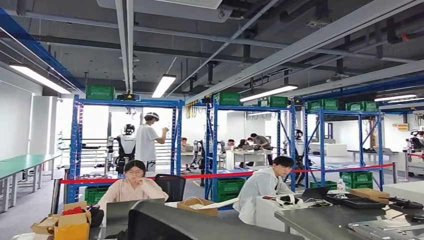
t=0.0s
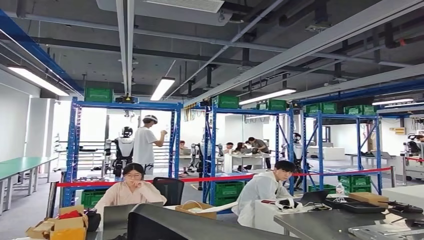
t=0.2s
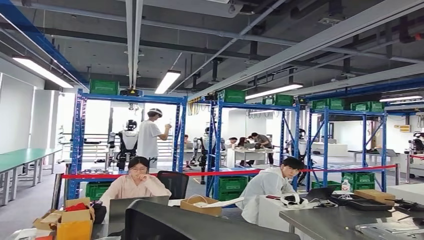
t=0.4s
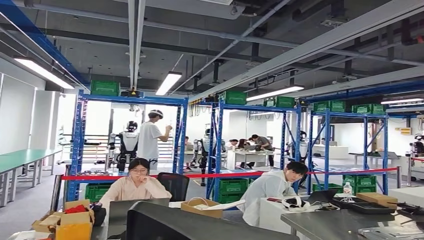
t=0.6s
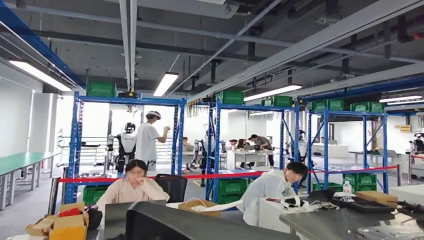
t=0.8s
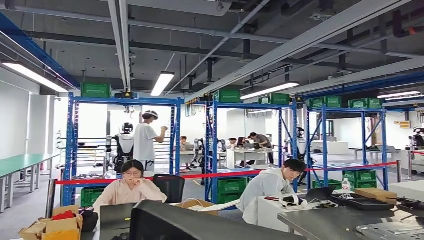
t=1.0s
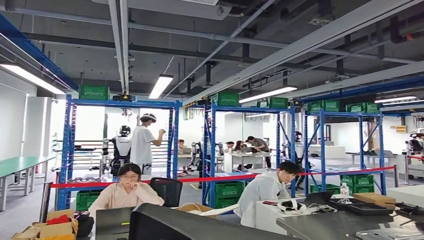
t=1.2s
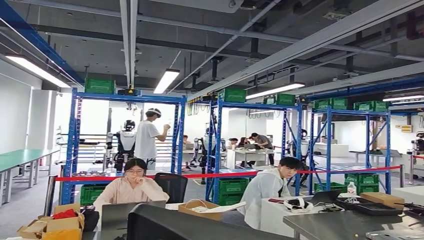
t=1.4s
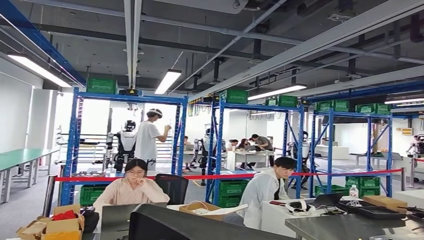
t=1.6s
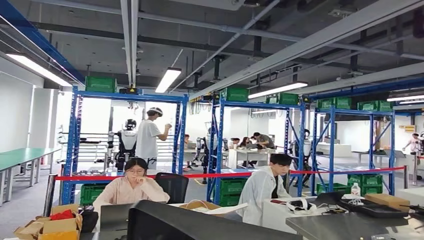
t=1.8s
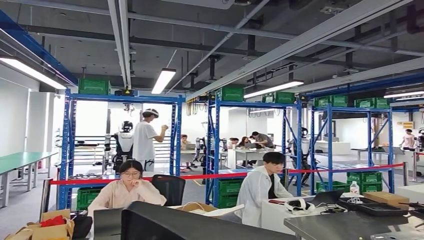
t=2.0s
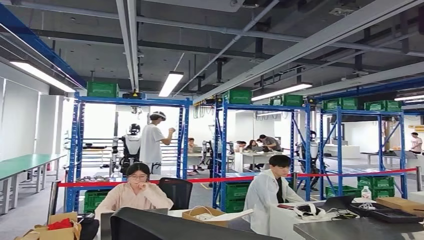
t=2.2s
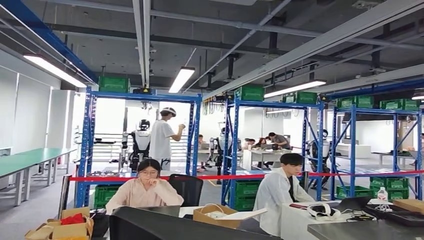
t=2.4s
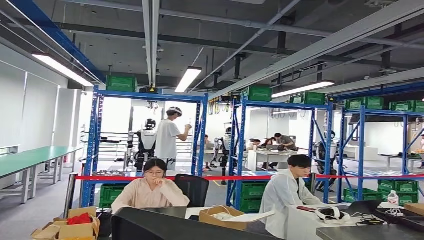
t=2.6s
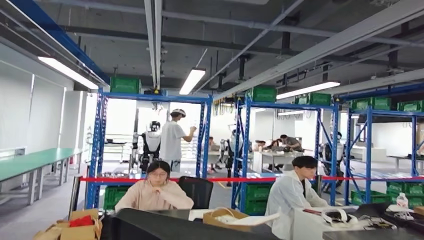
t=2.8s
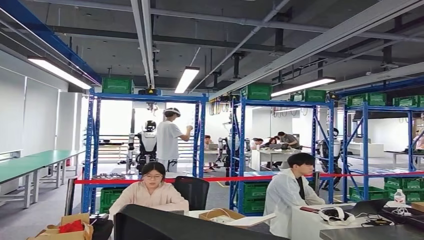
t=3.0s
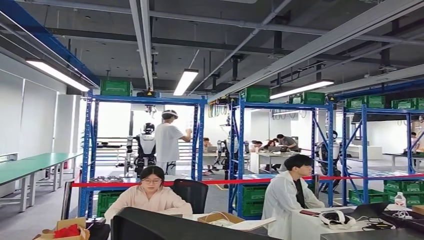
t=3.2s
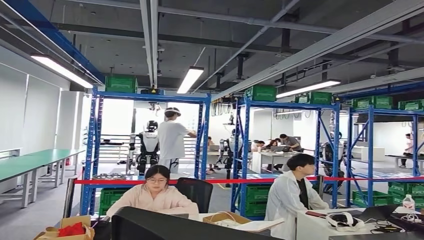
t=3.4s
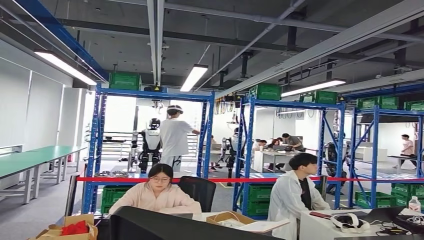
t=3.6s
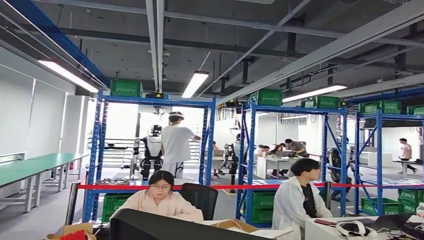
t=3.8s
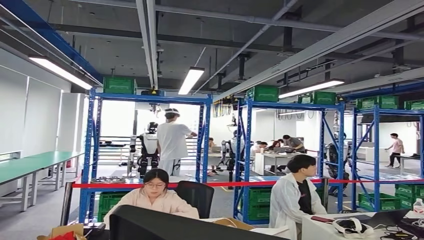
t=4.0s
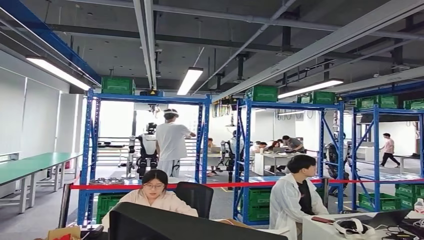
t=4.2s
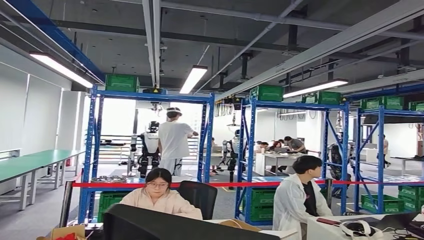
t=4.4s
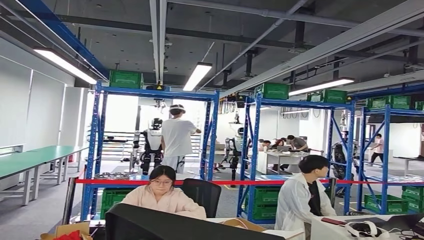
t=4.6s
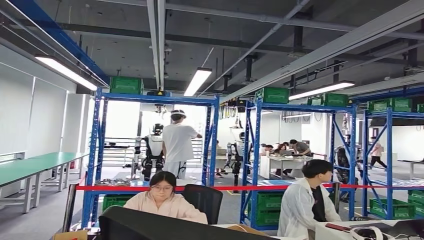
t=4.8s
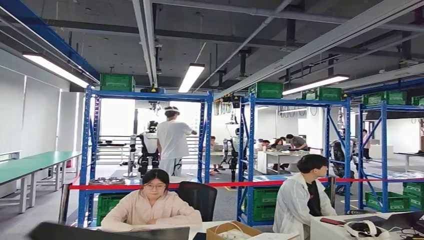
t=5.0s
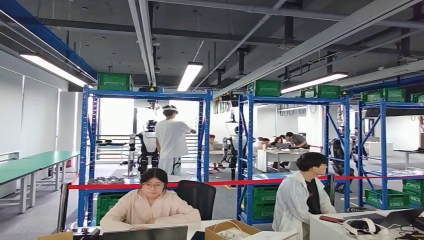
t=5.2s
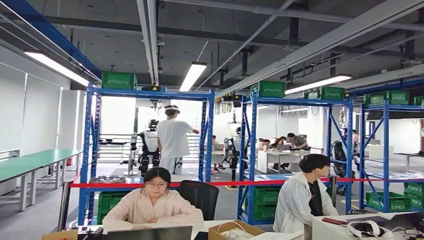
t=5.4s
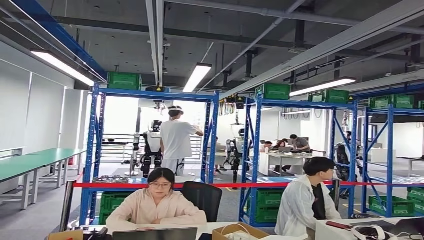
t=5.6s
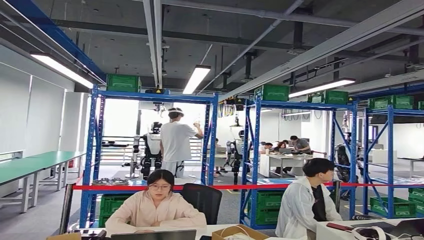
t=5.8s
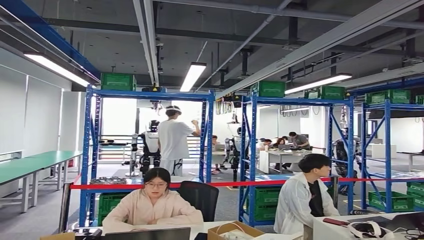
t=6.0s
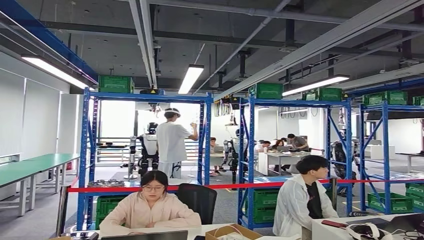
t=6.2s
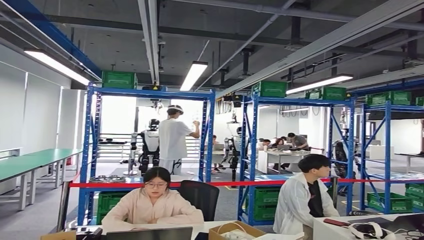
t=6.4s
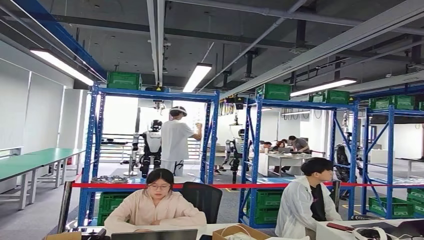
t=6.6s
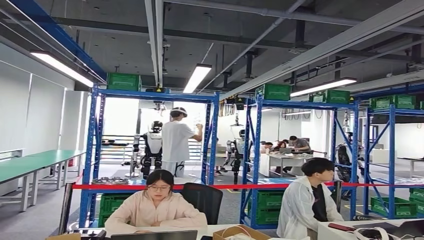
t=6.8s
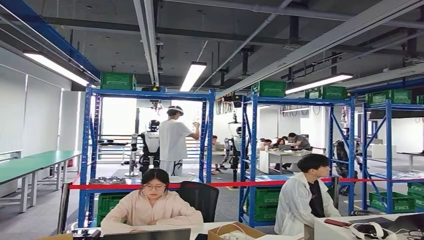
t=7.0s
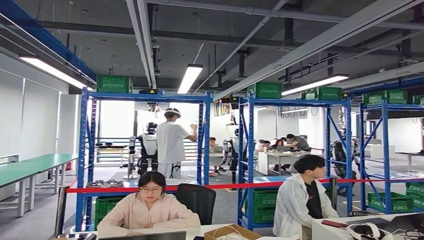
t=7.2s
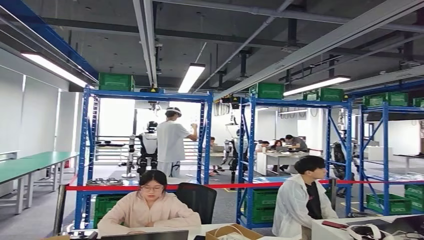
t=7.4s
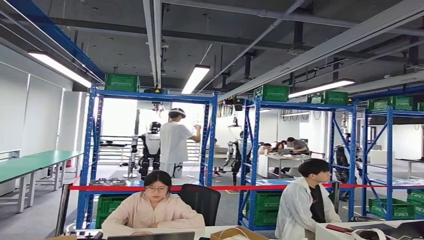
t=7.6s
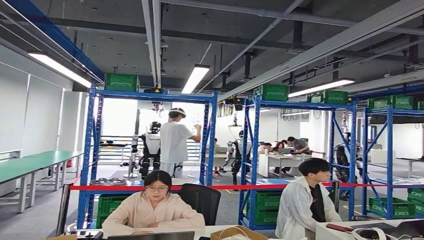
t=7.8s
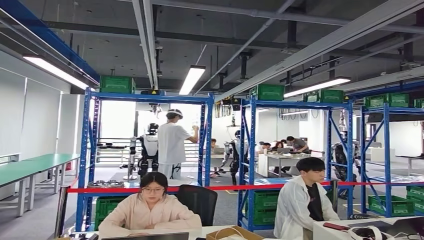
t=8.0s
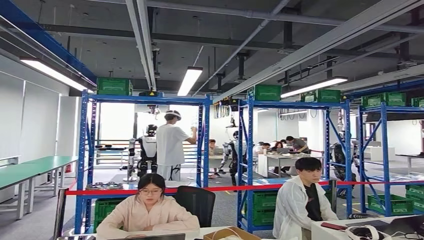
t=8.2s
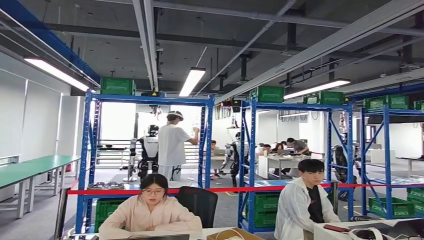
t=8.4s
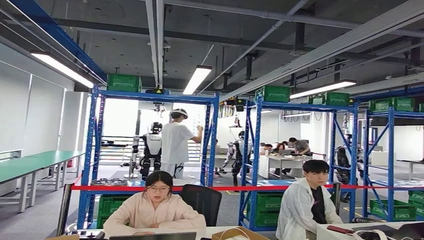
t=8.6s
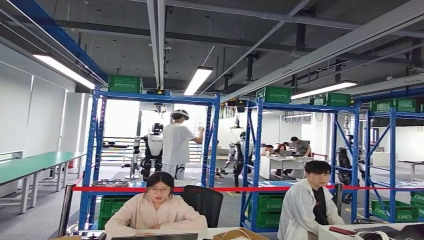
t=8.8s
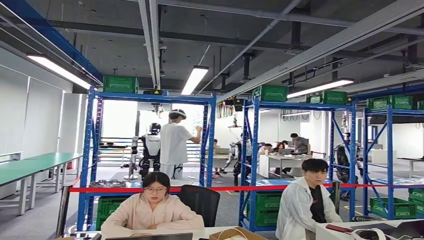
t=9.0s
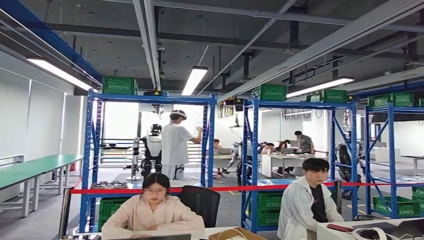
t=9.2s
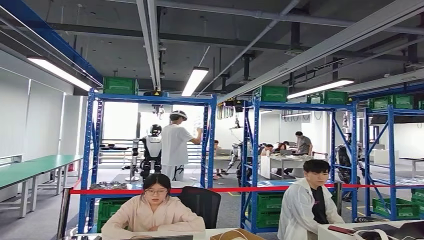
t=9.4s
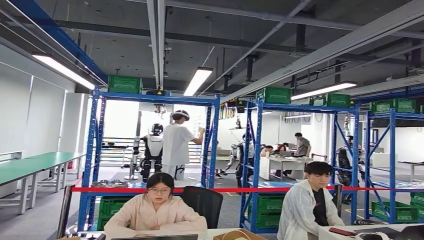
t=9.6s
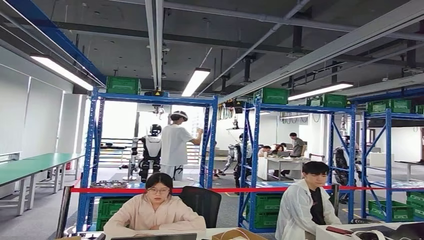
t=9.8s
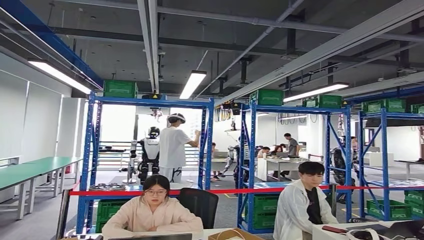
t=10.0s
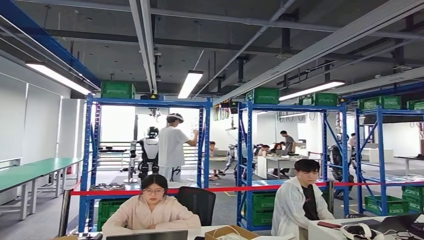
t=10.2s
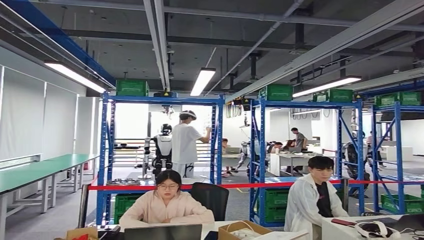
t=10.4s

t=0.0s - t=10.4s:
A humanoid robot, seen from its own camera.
Step, t=0.0s - t=6.2s: Move the small parts to the workbench.
Step, t=6.4s - t=9.2s: Insert the small parts into the corresponding holes on the workbench.

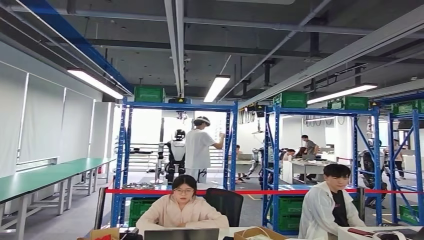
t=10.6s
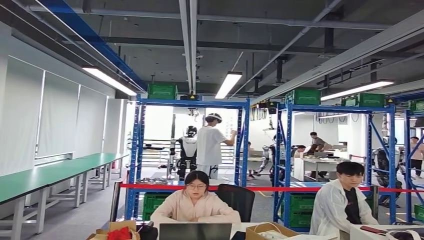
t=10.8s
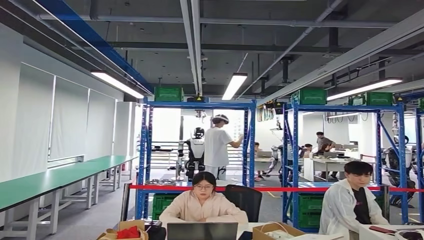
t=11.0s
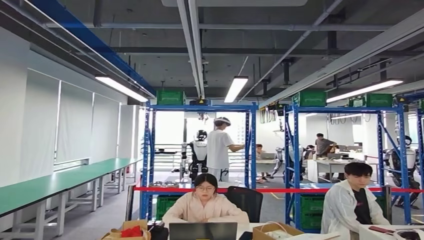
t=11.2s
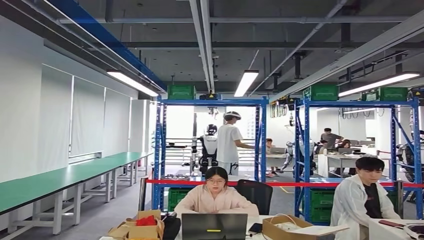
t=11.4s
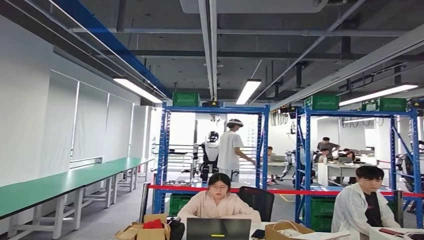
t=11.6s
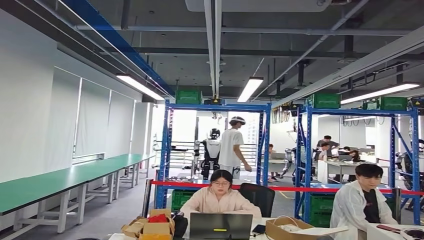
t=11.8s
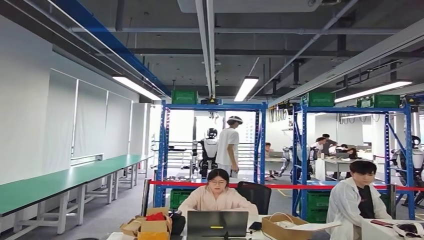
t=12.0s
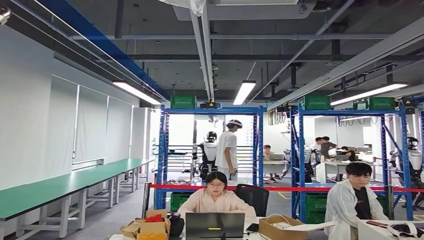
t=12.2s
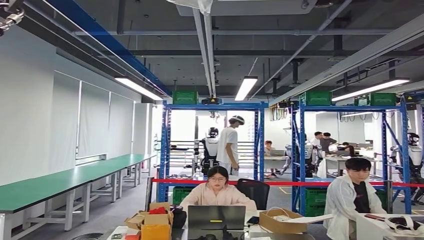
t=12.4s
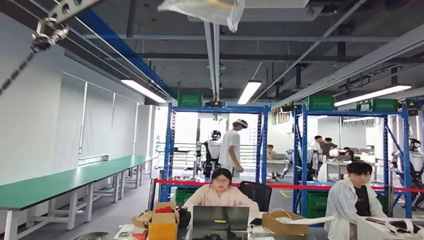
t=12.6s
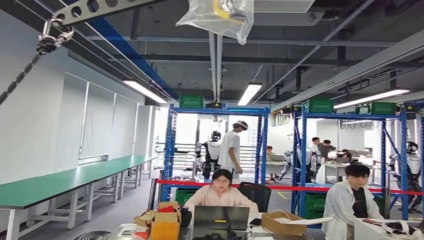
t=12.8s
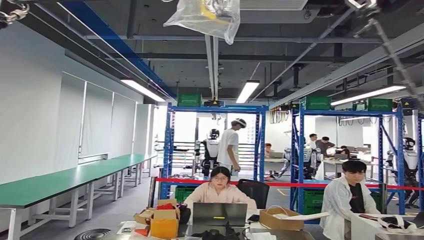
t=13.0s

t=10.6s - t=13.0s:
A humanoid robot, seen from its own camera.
Step, t=10.6s - t=13.0s: Move to the initial position at the workbench.

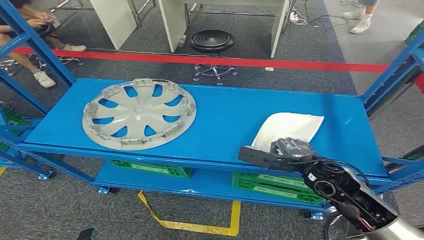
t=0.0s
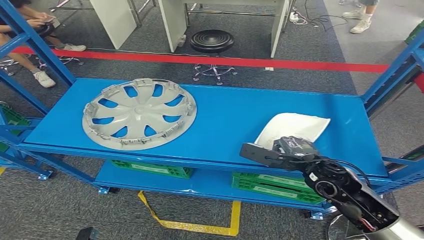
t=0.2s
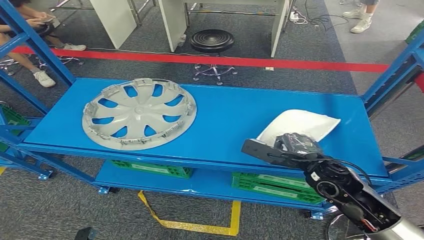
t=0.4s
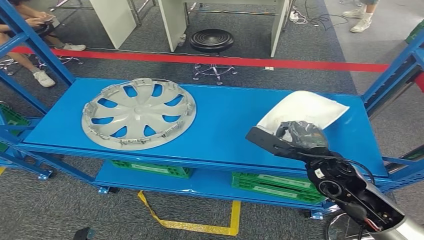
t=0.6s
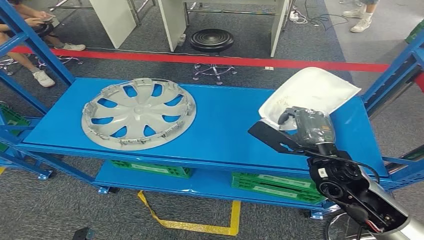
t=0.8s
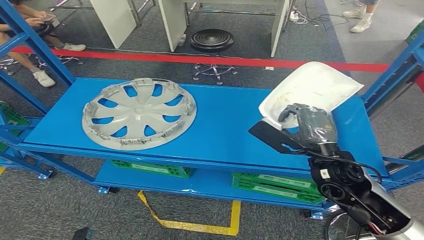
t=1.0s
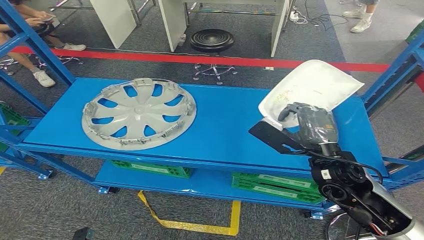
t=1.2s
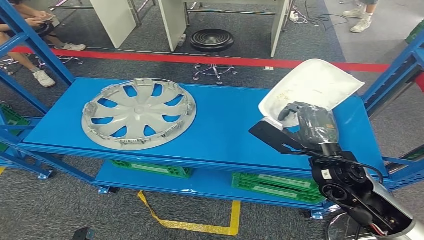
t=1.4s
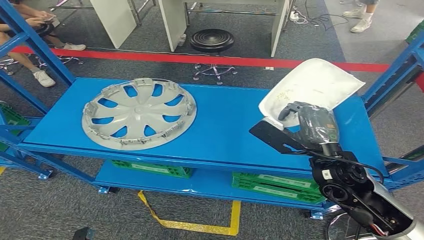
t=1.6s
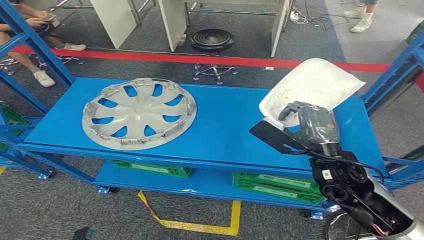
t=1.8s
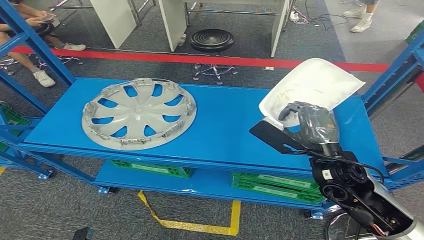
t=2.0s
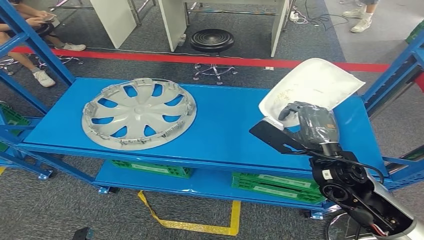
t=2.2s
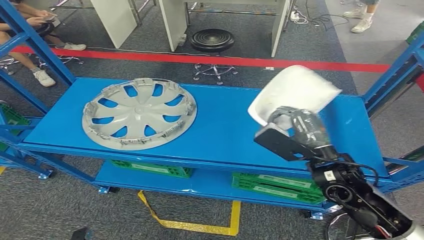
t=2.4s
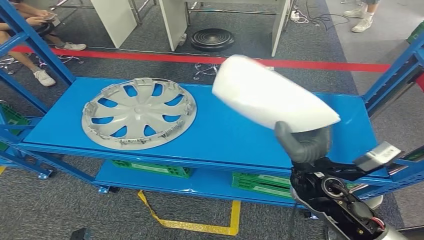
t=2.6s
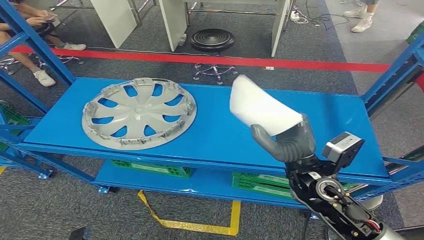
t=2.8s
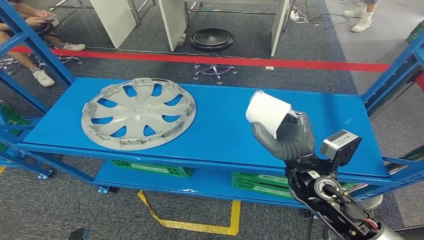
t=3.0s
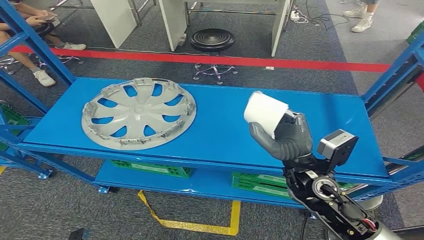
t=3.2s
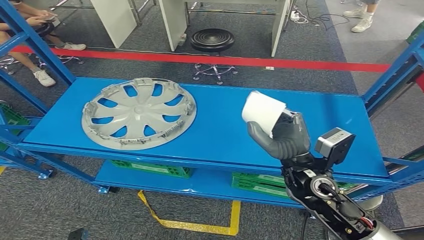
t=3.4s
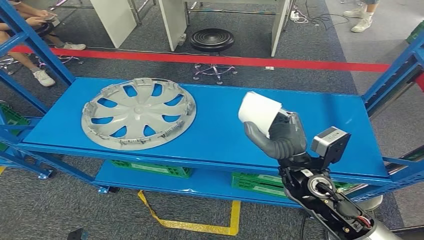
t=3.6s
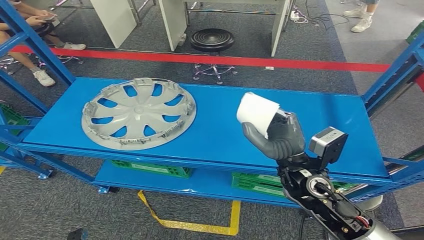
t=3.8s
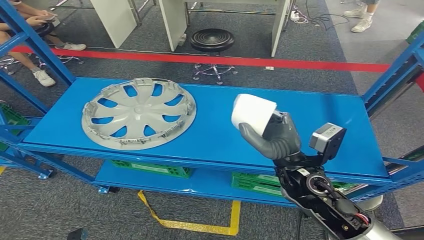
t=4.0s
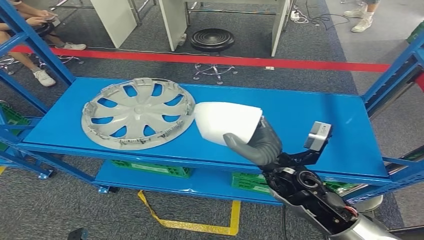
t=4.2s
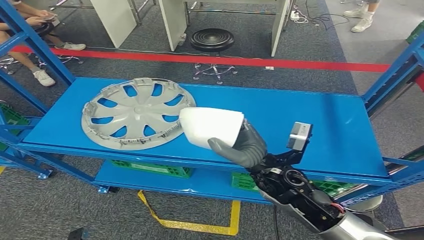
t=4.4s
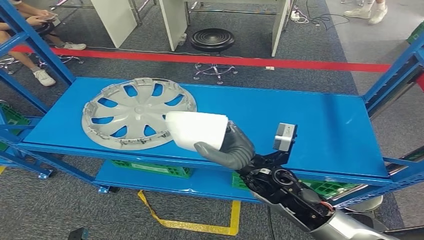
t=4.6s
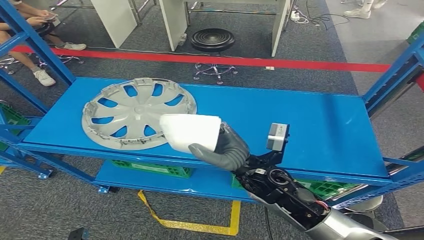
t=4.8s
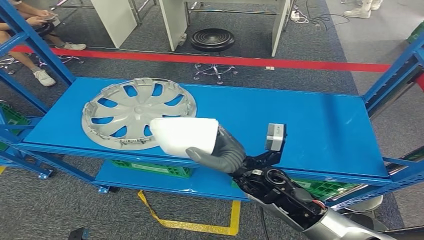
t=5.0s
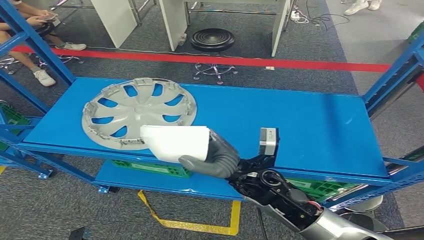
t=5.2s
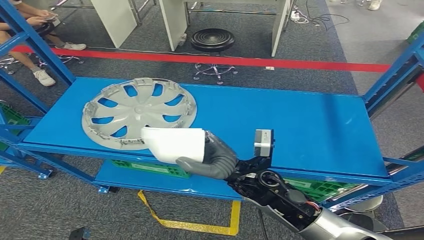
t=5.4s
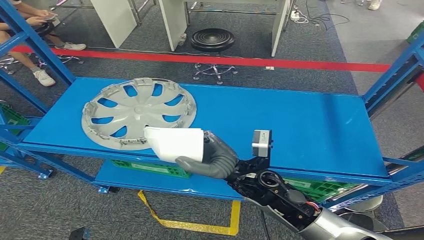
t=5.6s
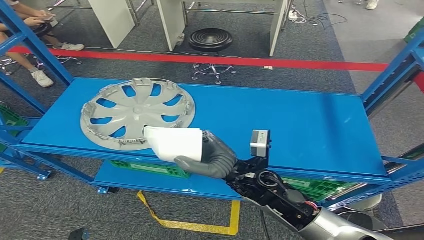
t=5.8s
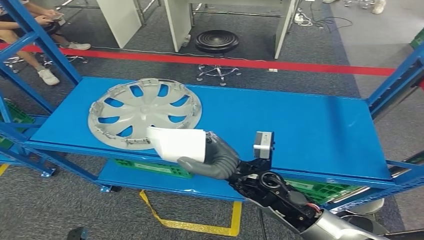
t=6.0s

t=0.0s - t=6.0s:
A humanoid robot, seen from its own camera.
Step, t=0.0s - t=1.8s: Pick up the small parts from the shelf.
t=1.6s - t=3.0s: The right hand moves approximately 5 cm.
t=3.0s - t=4.4s: The right hand goes about 5 cm to the left.
